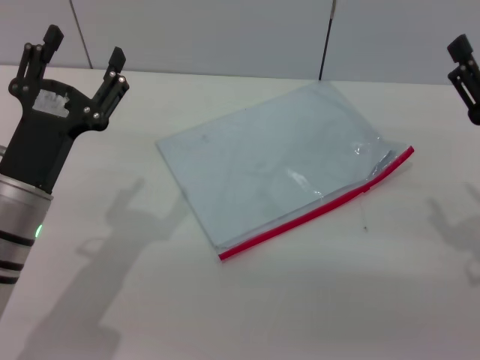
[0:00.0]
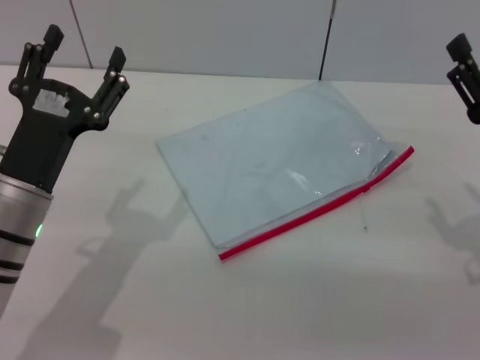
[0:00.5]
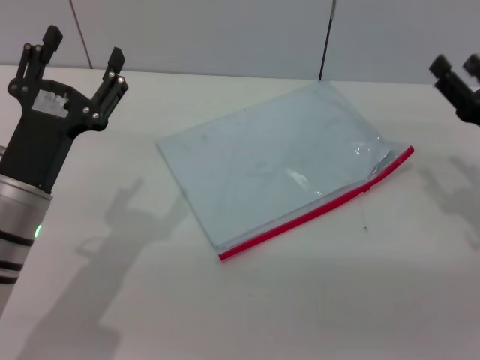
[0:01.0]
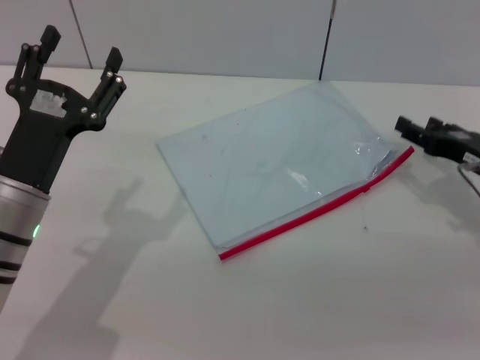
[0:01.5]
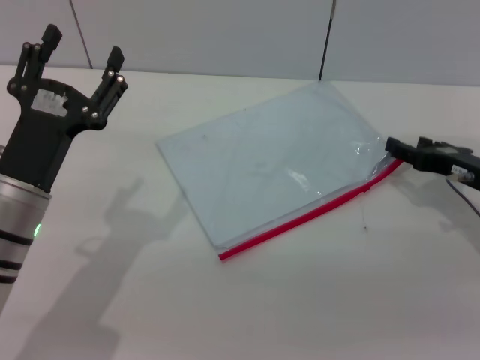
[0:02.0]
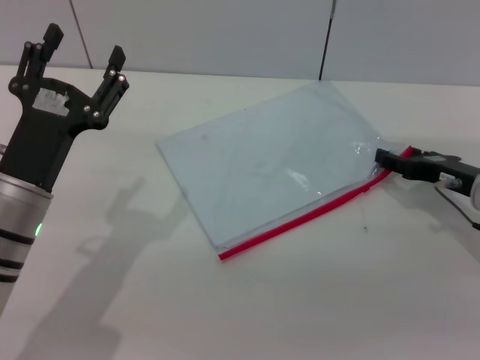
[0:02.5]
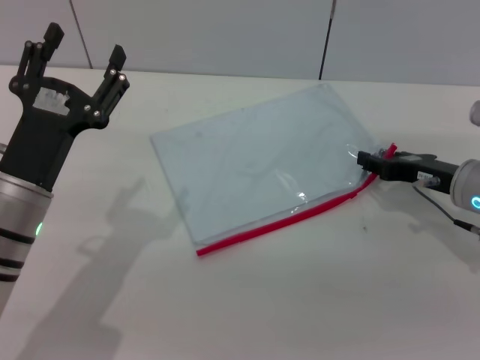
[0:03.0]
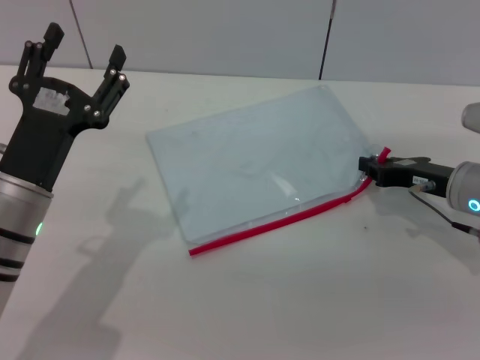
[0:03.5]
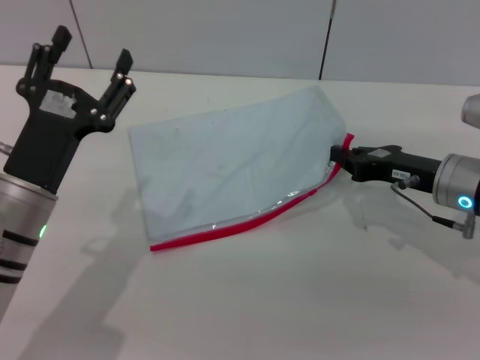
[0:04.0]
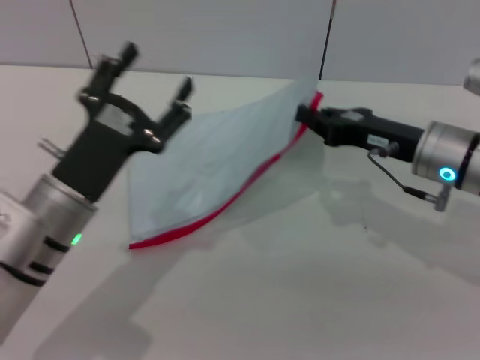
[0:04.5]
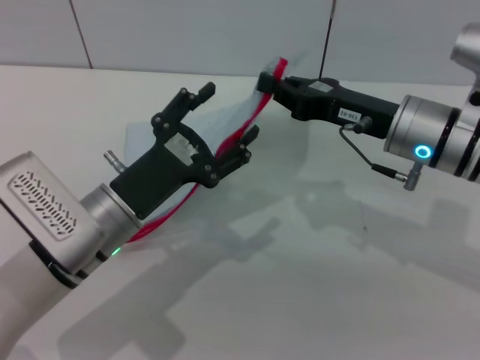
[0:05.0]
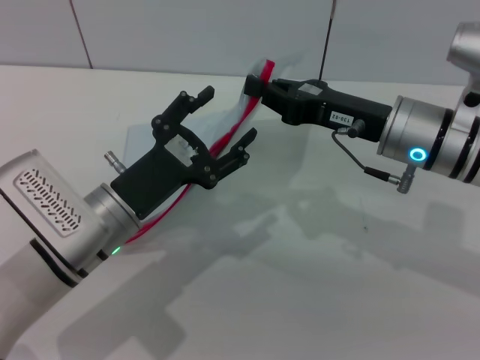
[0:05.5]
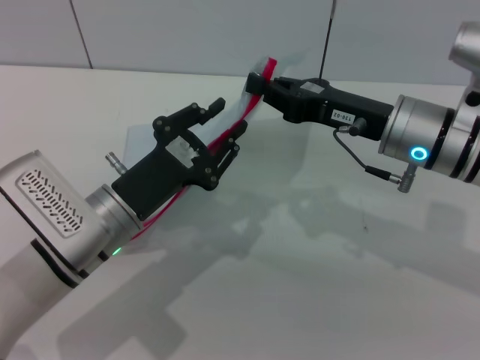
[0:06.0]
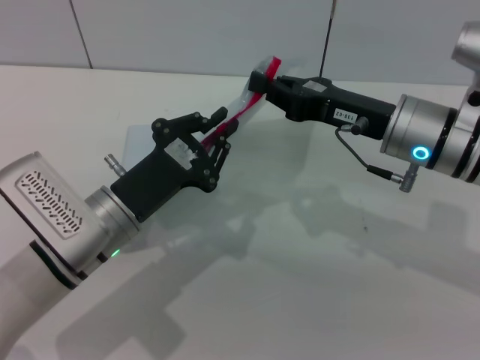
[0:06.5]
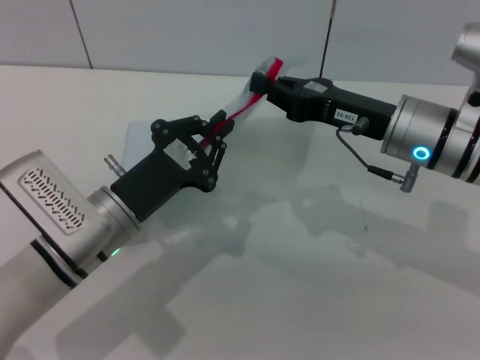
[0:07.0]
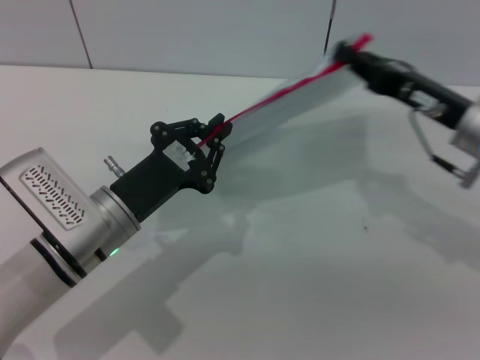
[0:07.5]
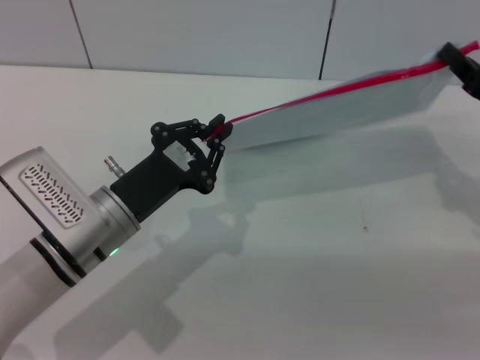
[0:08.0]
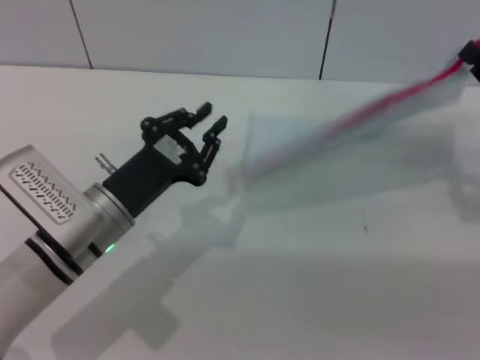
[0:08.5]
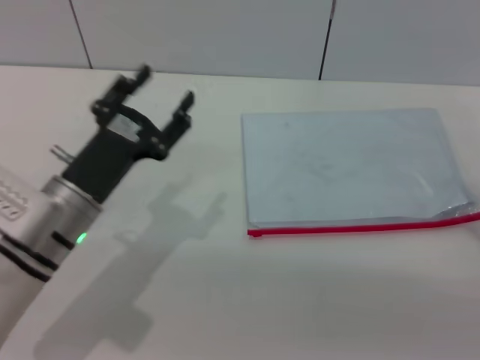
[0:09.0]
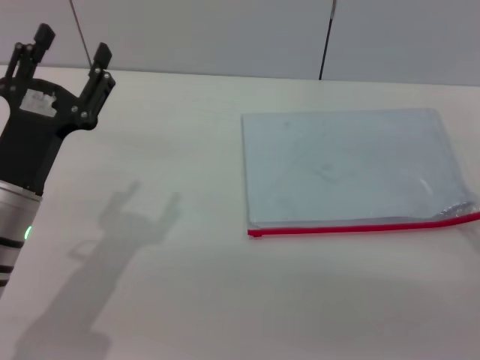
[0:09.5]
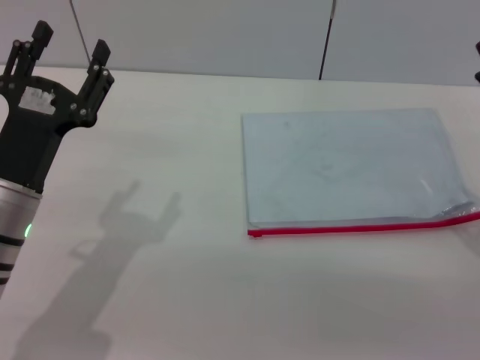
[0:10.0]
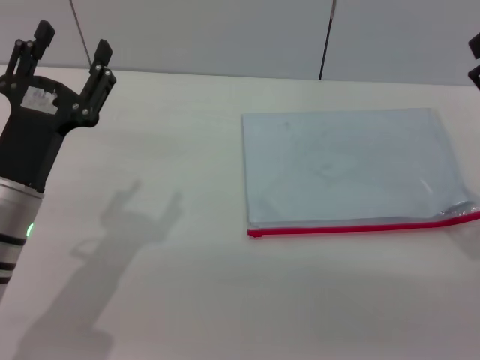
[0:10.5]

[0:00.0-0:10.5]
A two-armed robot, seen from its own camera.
Step, 0:00.0 to 0:04.0: Pick up the transparent plastic bag with the right gripper.
Step, 0:04.5 to 0:08.5: Pulling up the zipper on the transparent plastic bag with the left gripper to close it.
Step, 0:09.0 to 0:09.5: Place the transparent plastic bag.
0:00.0 to 0:02.0: The right gripper heads forward, covering about 10 cm.
0:02.0 to 0:04.0: The right gripper goes about 5 cm to the left, and closes up.
0:04.0 to 0:06.5: The left gripper goes roughly 5 cm to the right, and closes up. The right gripper heads to the left and upward, covering about 10 cm.
0:06.5 to 0:08.5: The right gripper shifts roughly 15 cm to the right.
0:08.5 to 0:10.5: The right gripper ends up approximately 5 cm from where it was, and opens, while the left gripper shifts approximately 5 cm to the left, and opens.

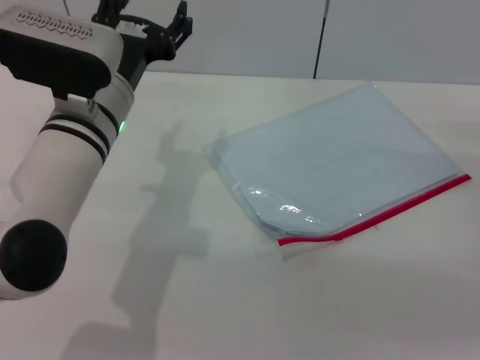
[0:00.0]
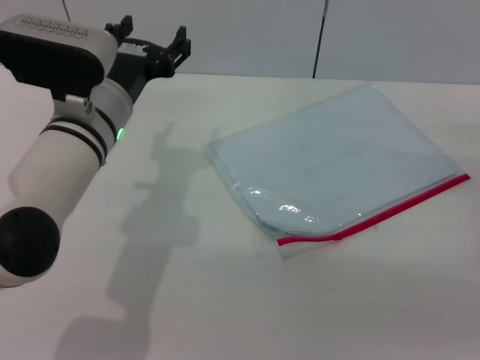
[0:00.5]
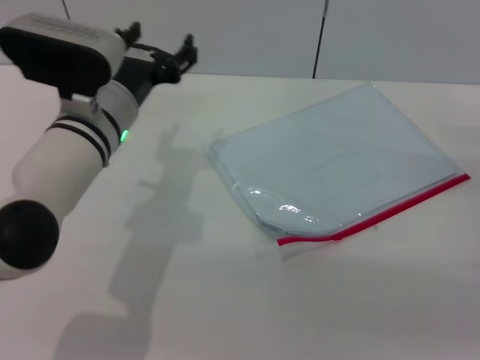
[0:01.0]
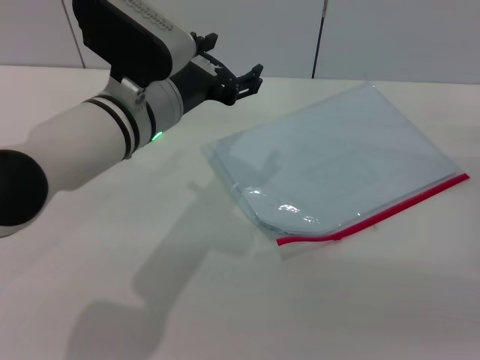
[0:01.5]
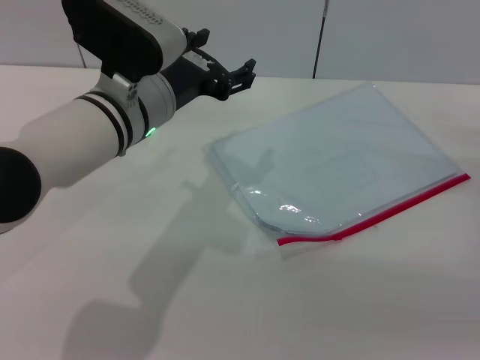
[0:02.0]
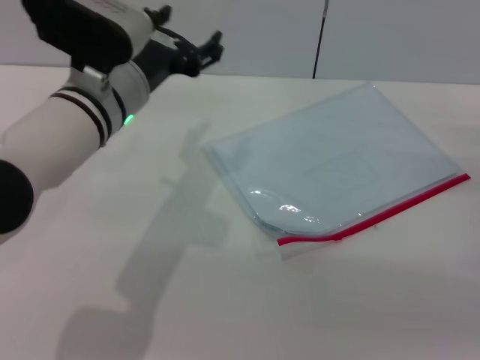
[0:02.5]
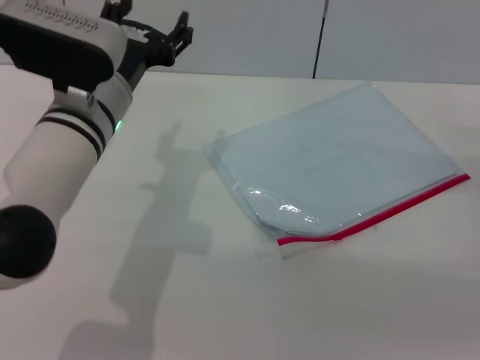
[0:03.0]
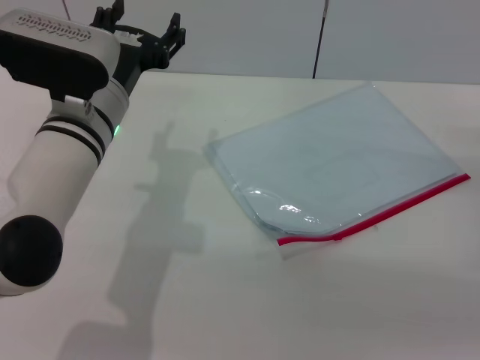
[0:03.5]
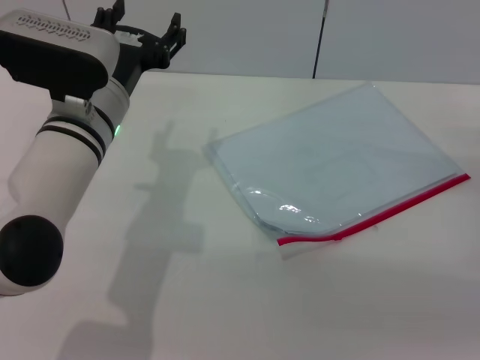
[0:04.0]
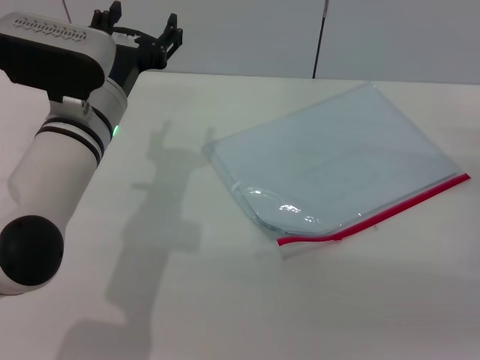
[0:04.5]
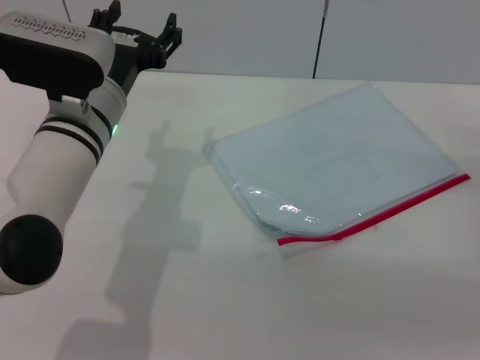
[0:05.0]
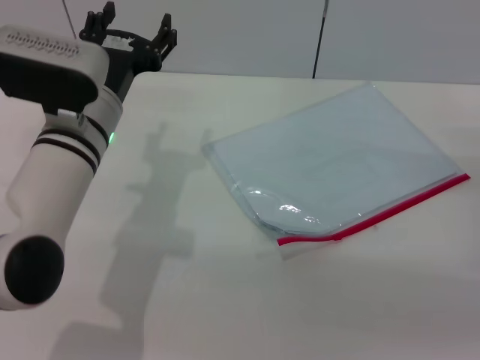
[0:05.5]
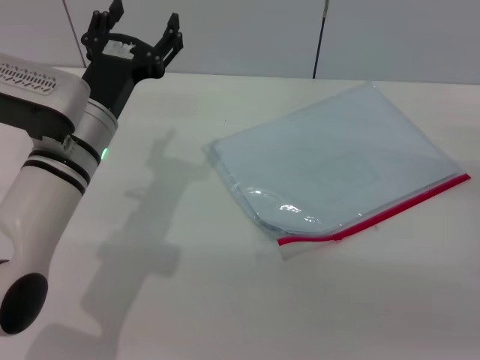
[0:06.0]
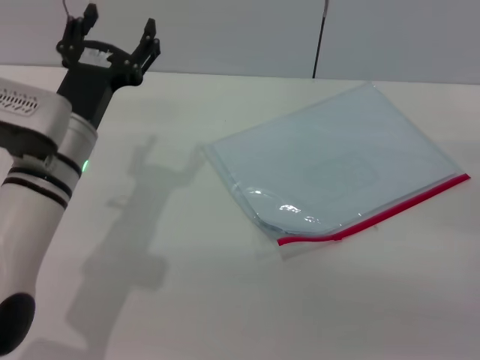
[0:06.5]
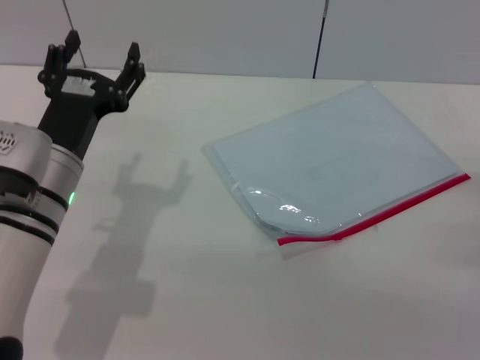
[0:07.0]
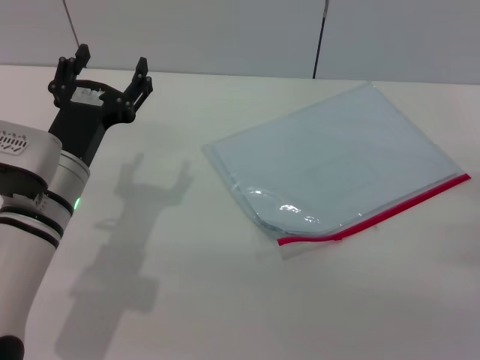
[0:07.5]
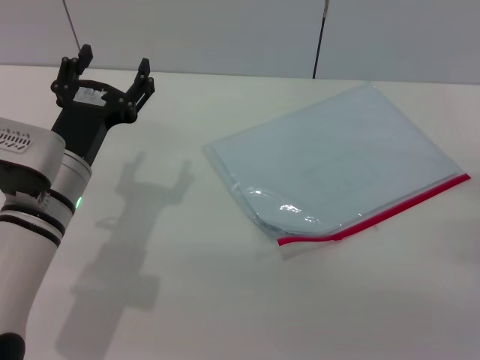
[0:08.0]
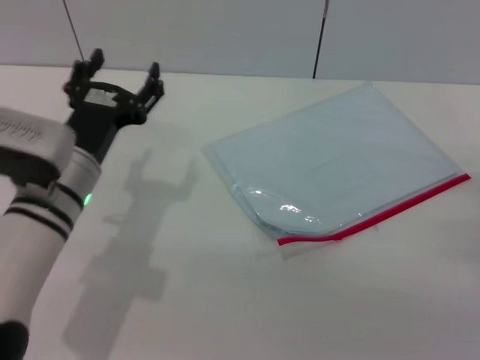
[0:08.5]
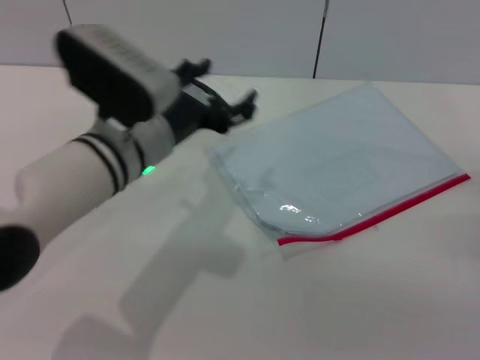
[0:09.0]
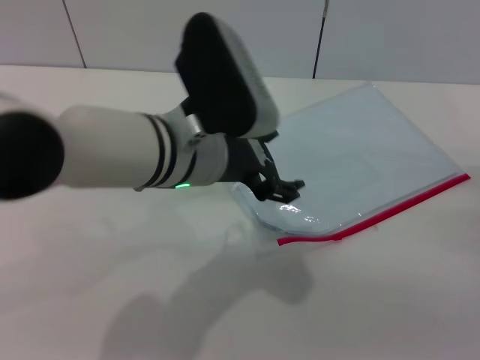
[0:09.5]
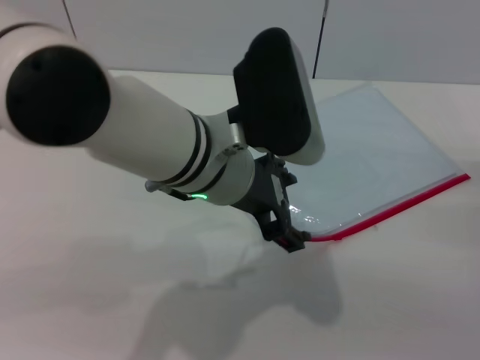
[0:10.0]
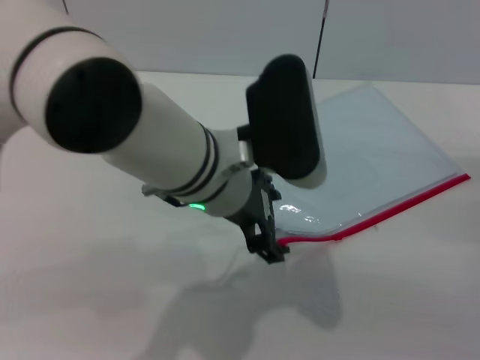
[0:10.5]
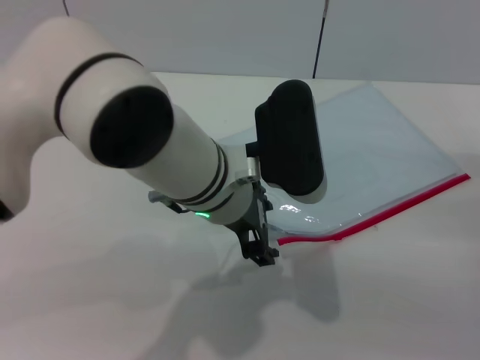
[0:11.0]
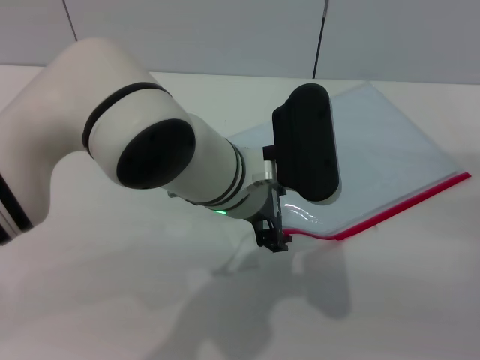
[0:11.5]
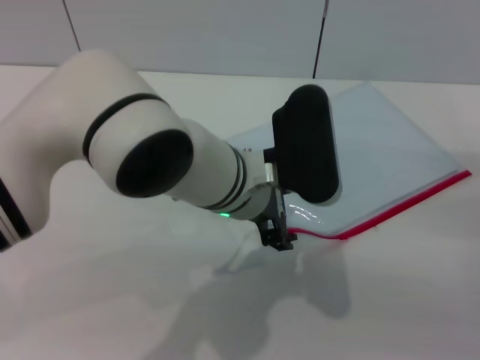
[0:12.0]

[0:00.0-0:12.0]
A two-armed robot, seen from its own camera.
0:04.0 to 0:06.0: The grippers make only small movements.
0:06.0 to 0:08.0: The left gripper shifts by some 5 cm.
0:08.0 to 0:10.0: The left gripper shifts roughly 15 cm to the right and upward.
0:10.0 to 0:12.0: The left gripper moves roughly 5 cm.

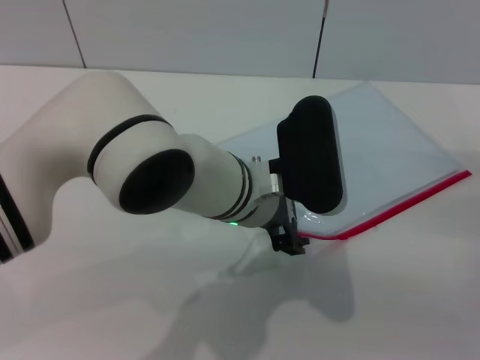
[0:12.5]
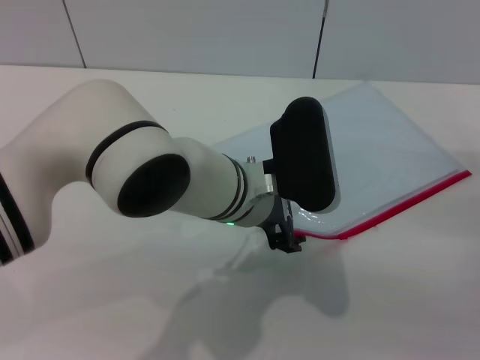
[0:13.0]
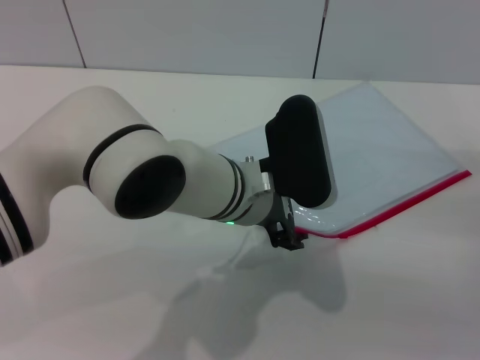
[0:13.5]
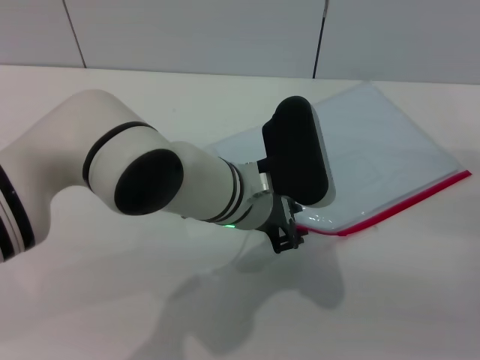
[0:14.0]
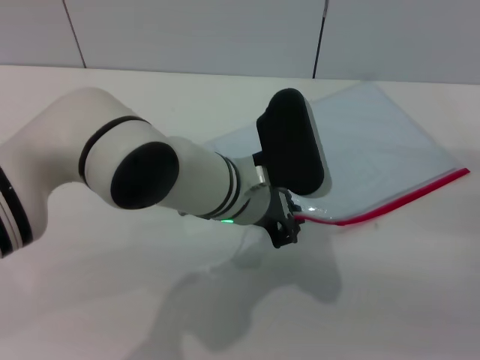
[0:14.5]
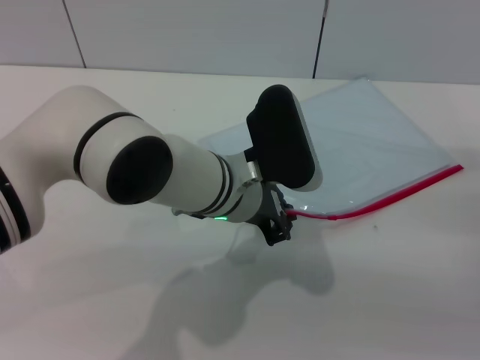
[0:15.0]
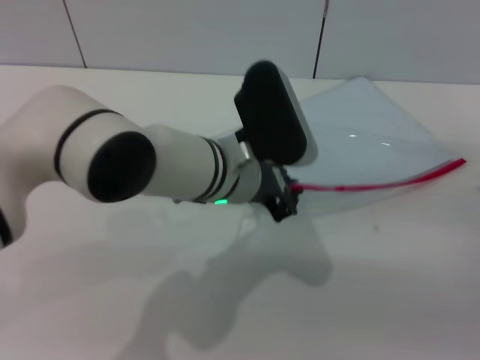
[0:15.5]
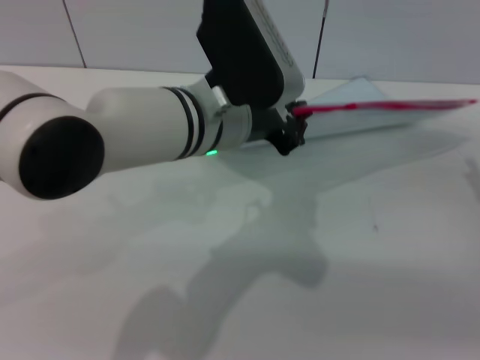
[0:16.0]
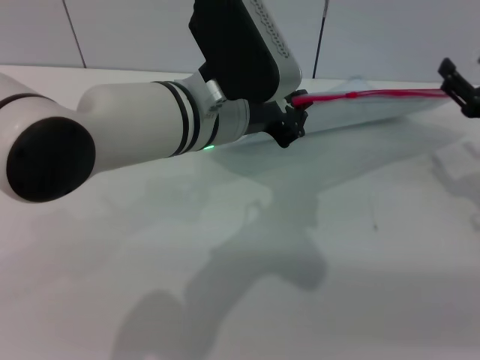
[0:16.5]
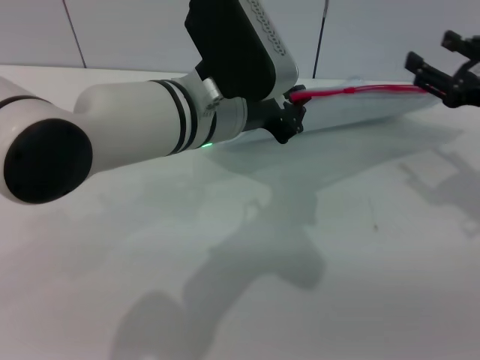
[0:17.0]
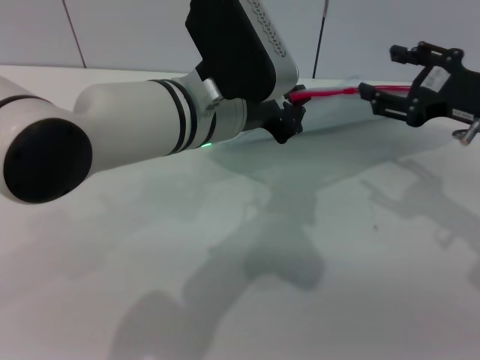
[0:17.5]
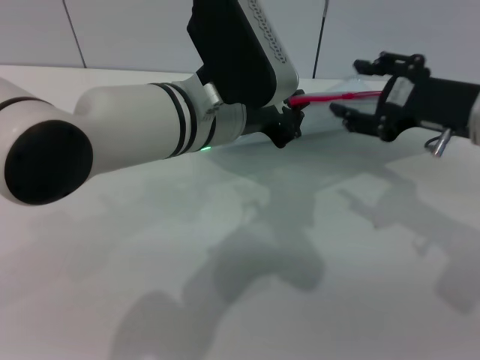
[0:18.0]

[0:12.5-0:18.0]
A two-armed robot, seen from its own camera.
Step, 0:12.5 to 0:15.5: Pick up the transparent plastic bag with the left gripper.
0:12.5 to 0:14.5: The left gripper closes its fingers.
0:14.5 to 0:16.0: The left gripper moves upward, about 5 cm.
0:16.0 to 0:18.0: The right gripper moves upward and to the left, some 15 cm.
